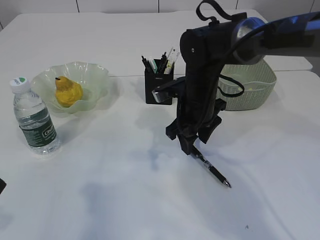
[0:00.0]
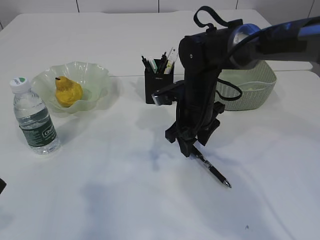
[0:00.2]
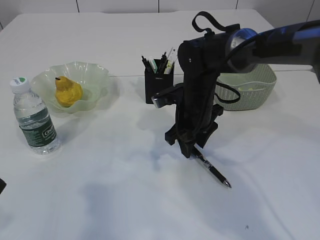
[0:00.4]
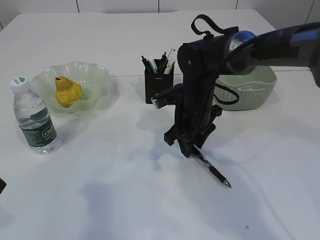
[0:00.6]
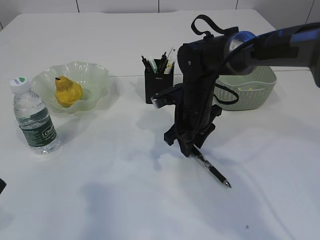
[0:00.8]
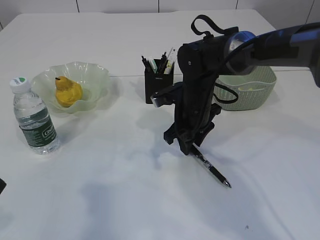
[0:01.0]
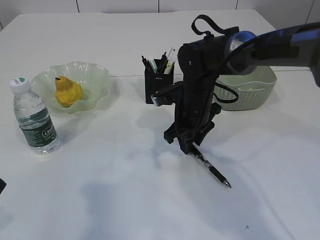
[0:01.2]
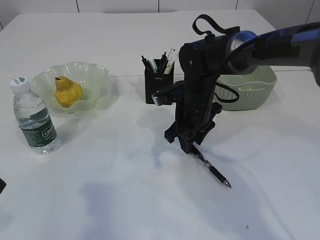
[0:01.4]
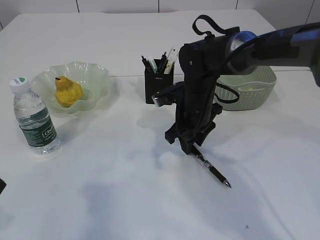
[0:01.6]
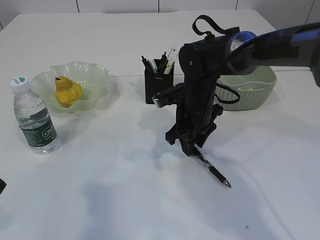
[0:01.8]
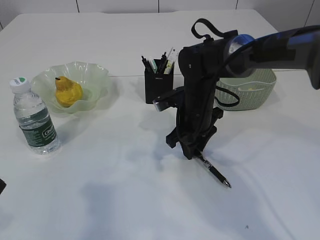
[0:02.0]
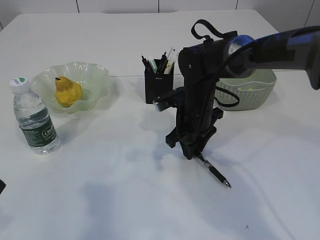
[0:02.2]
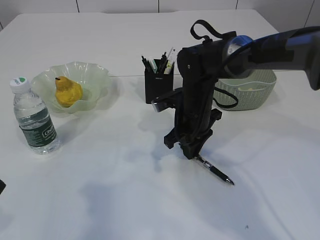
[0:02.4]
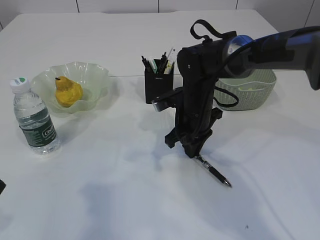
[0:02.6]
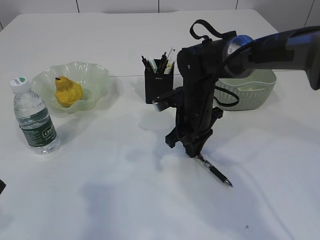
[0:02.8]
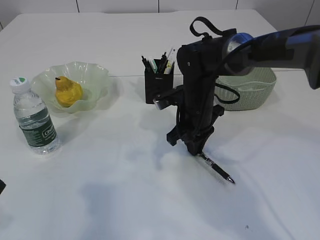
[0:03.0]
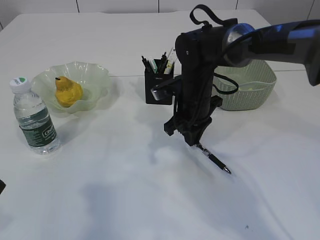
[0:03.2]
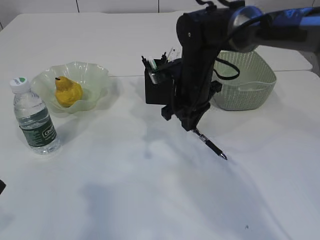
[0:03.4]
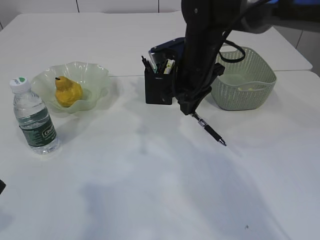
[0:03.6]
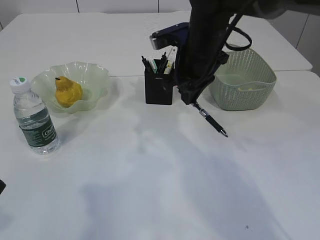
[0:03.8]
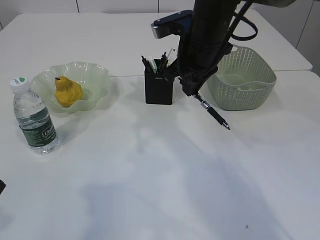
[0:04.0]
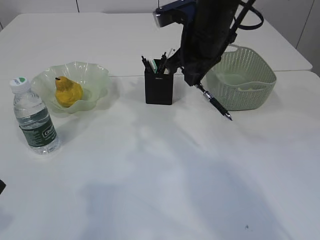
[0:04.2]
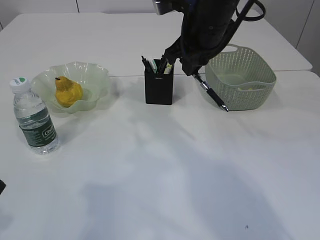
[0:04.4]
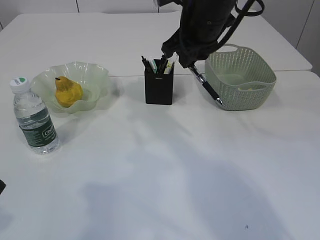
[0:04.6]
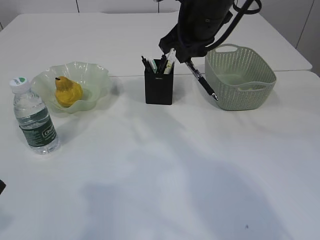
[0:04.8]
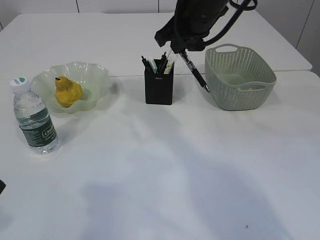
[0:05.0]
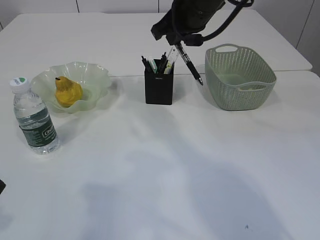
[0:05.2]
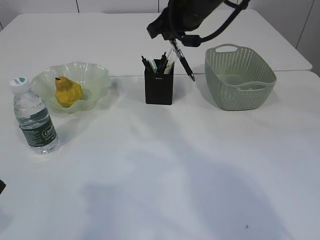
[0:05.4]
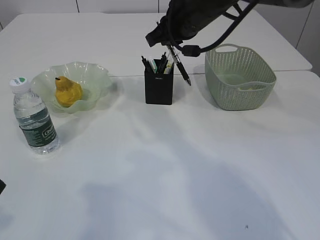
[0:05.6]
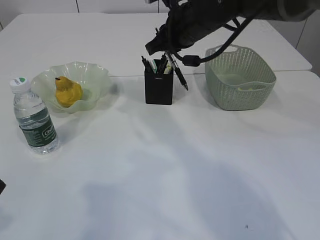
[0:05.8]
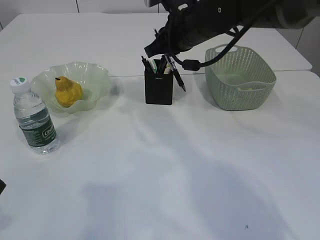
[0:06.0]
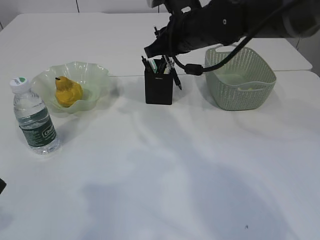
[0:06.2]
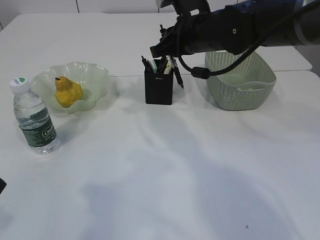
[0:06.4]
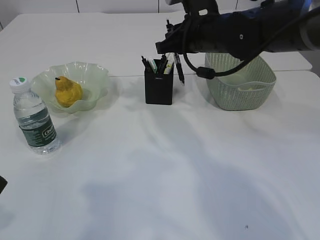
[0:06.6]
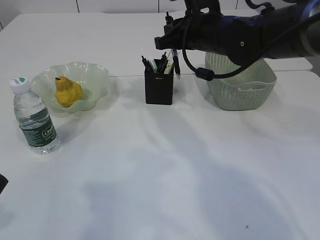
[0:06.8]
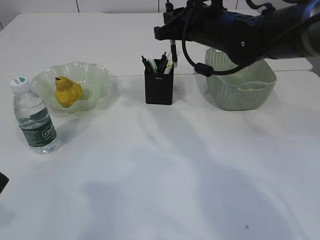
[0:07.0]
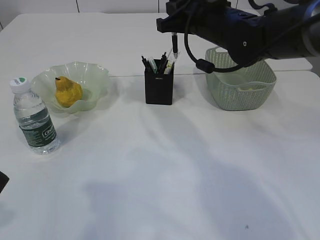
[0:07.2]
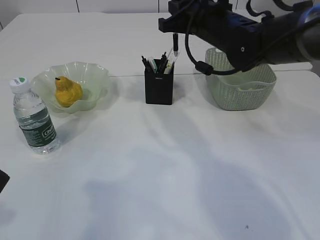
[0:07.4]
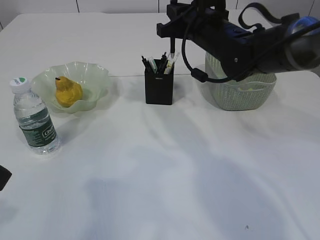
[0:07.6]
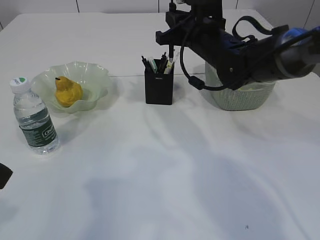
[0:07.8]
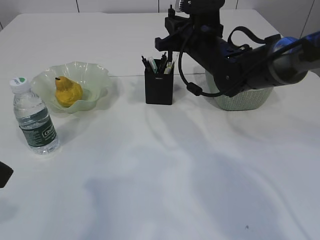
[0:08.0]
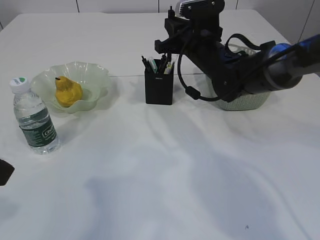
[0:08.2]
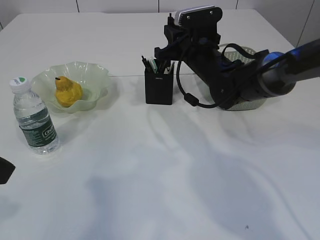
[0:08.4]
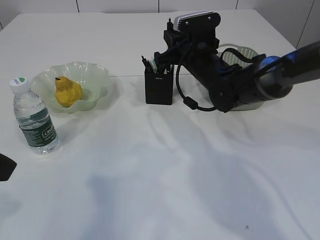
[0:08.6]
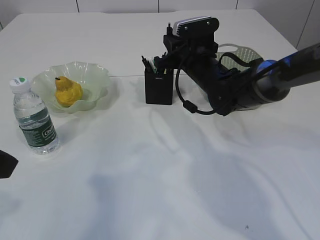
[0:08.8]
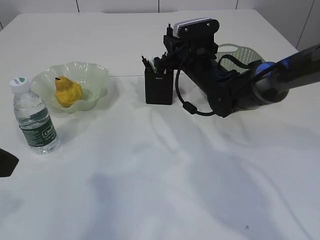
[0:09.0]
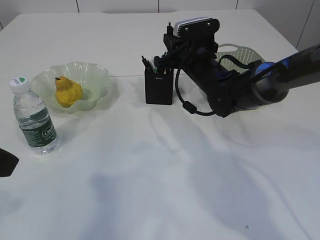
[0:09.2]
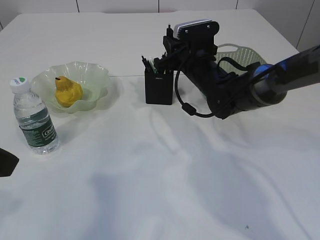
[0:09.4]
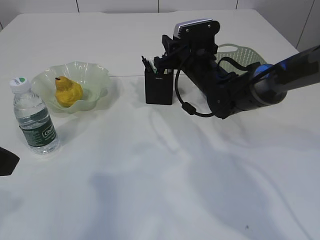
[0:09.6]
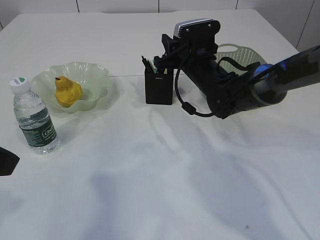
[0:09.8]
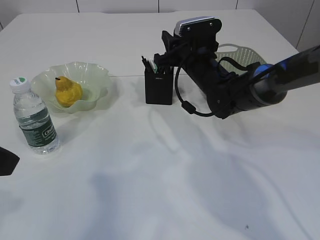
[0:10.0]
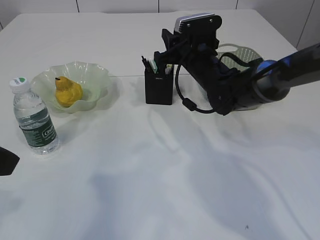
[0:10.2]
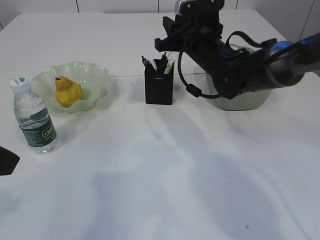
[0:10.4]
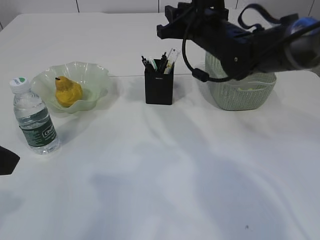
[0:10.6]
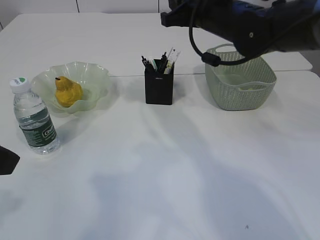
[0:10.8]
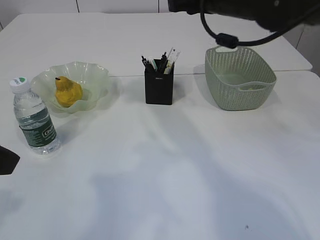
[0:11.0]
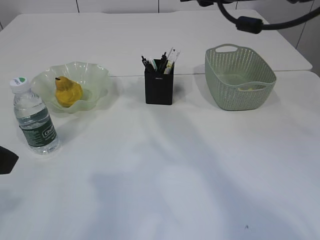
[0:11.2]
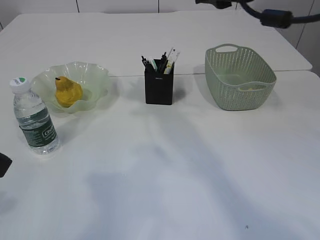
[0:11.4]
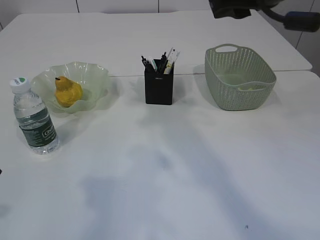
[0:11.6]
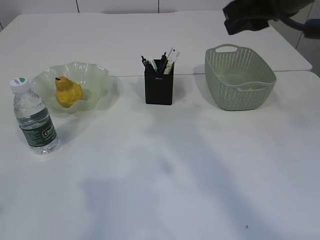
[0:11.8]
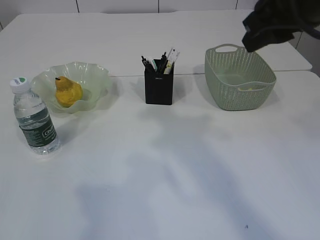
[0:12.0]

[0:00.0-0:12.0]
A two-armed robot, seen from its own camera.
Step, 0:00.0 to 0:03.4: Pick up the pen with right arm.
Step, 0:03.6 to 0:10.2: Place the pen into the pen holder.
0:00.0 to 0:01.6: The grippers move only a little.
0:01.6 to 0:03.0: The right gripper closes up.
0:03.0 to 0:04.4: The right gripper shifts about 15 cm upward.
0:07.6 to 0:09.0: The right gripper travels downward by approximately 10 cm.
0:09.0 to 0:10.4: The grippers make only small movements.
0:10.4 to 0:12.0: The right gripper travels backward and upward by about 25 cm. The left gripper shifts by roughly 5 cm.

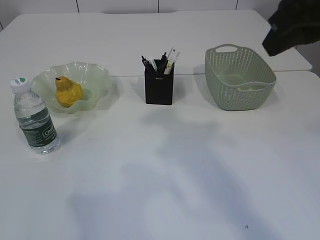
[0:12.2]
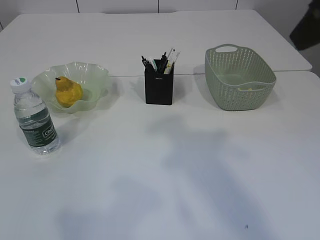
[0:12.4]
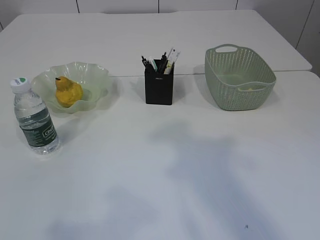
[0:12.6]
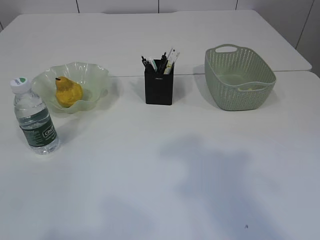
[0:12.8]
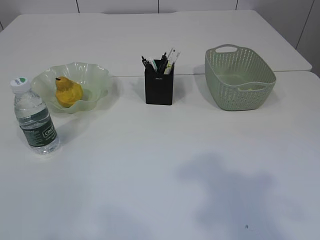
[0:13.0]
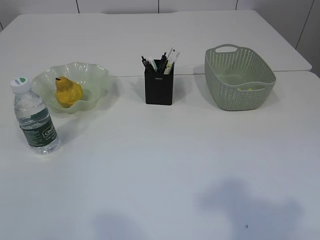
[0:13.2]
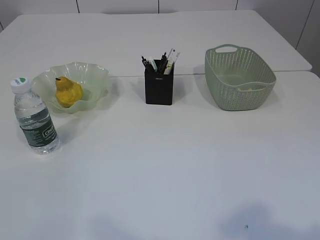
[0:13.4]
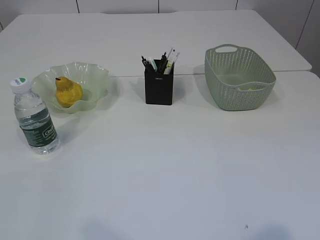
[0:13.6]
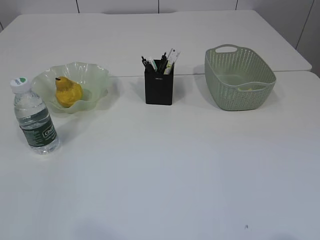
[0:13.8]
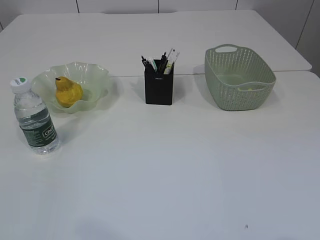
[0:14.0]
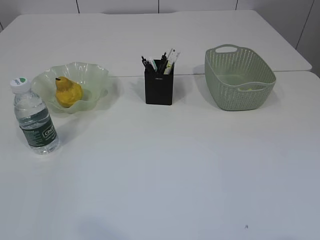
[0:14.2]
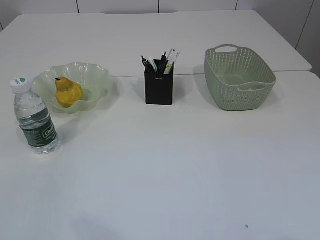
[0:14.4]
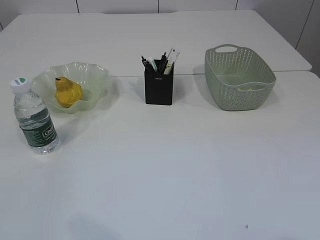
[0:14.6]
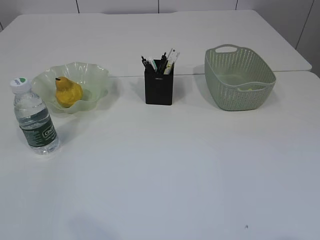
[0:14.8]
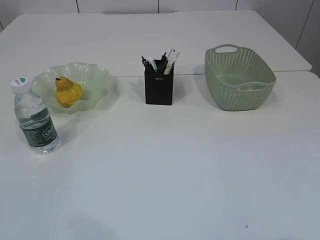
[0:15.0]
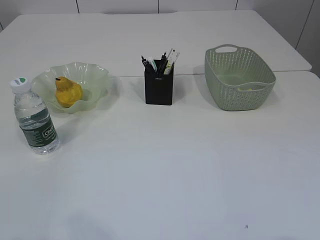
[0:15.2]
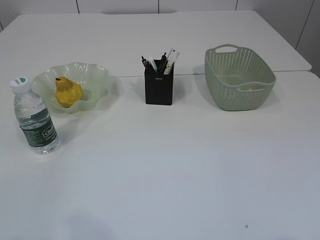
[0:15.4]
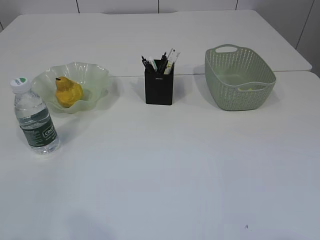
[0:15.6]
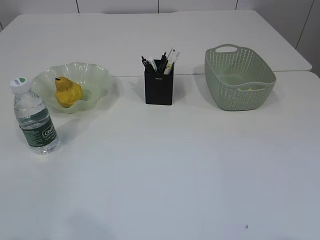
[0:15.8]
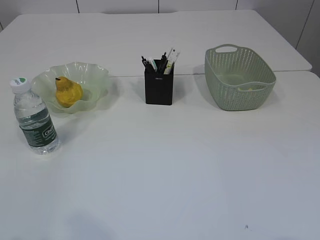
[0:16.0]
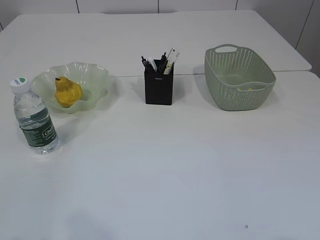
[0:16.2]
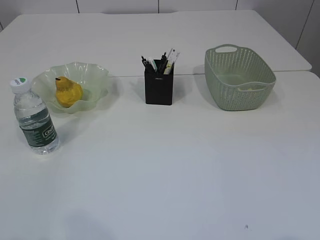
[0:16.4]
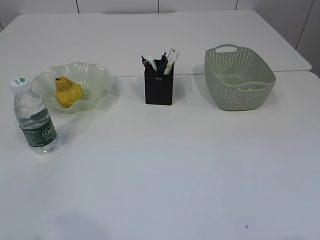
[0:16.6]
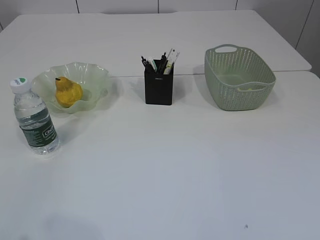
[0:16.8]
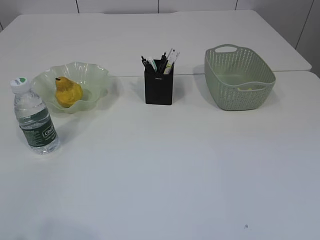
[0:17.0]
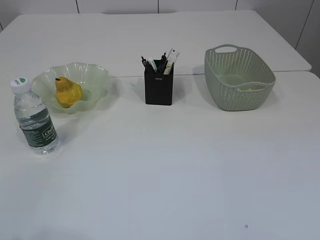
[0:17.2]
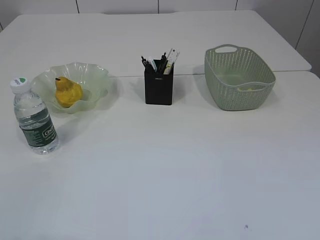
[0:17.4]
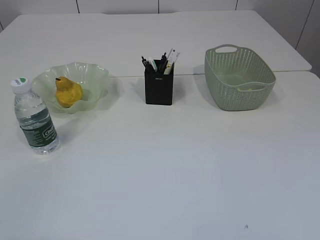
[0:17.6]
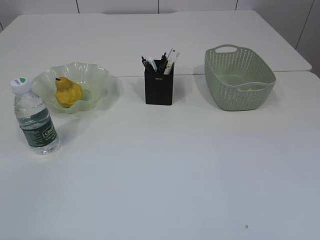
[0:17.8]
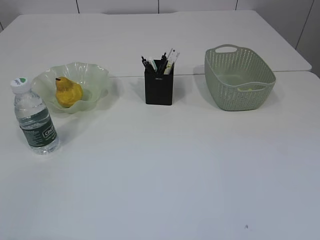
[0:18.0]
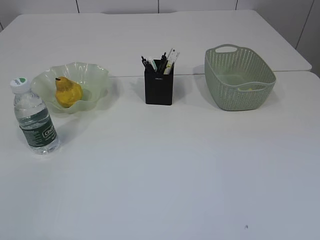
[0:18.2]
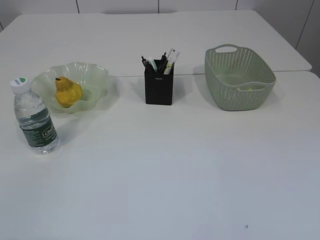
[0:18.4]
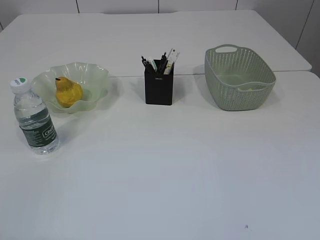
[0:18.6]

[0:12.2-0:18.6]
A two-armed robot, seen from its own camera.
0:12.2 to 0:13.8: The right gripper heads backward and downward, covering about 25 cm.

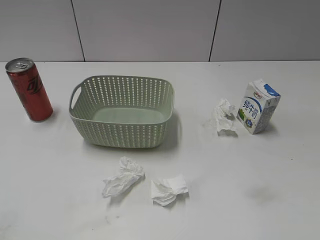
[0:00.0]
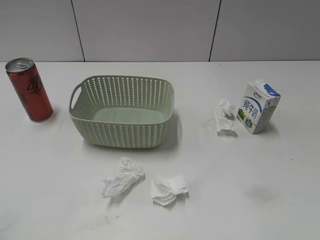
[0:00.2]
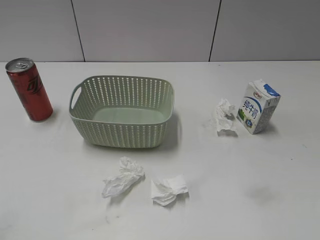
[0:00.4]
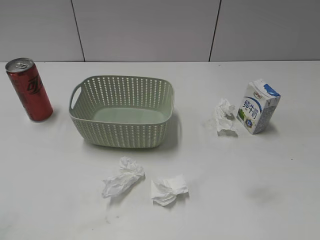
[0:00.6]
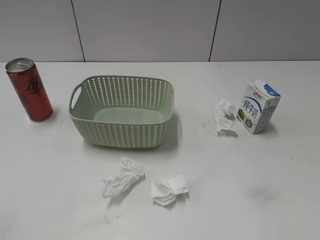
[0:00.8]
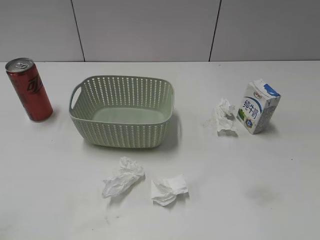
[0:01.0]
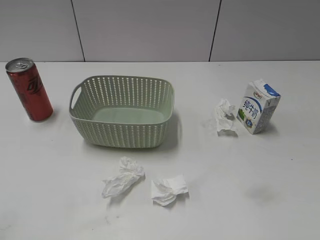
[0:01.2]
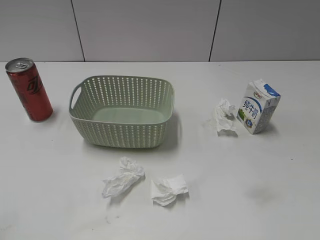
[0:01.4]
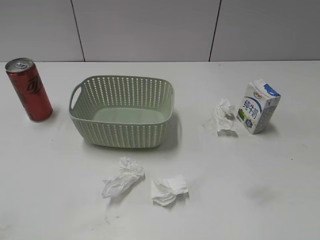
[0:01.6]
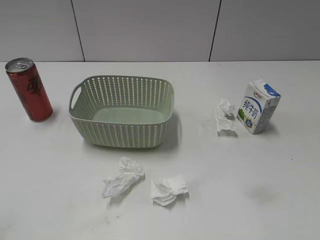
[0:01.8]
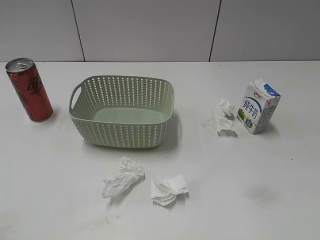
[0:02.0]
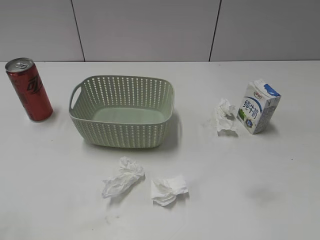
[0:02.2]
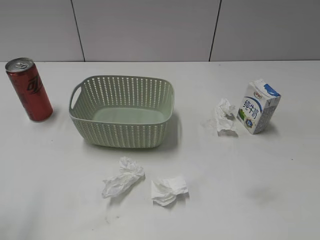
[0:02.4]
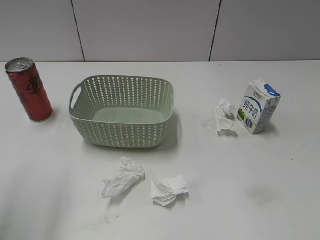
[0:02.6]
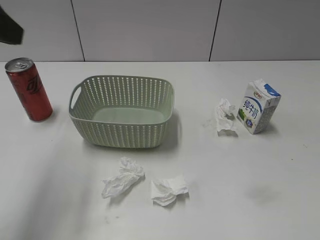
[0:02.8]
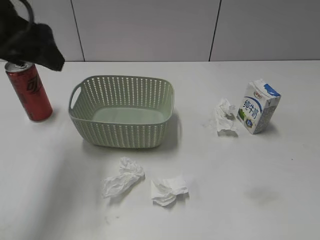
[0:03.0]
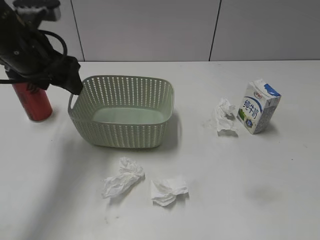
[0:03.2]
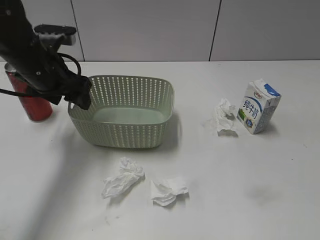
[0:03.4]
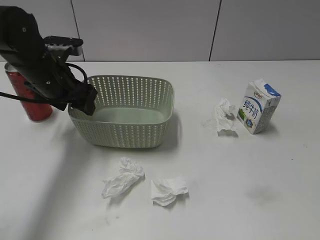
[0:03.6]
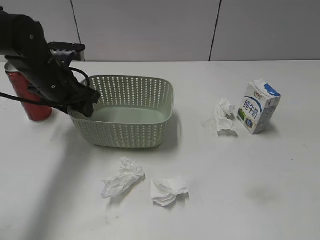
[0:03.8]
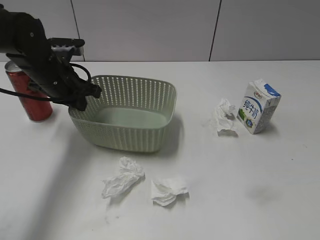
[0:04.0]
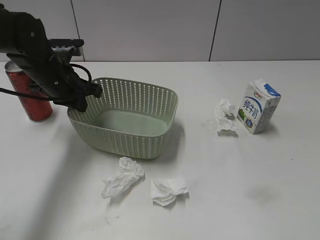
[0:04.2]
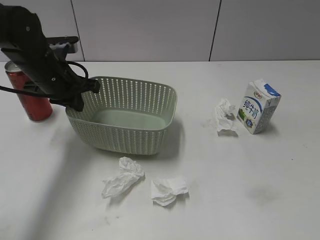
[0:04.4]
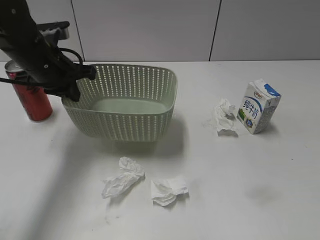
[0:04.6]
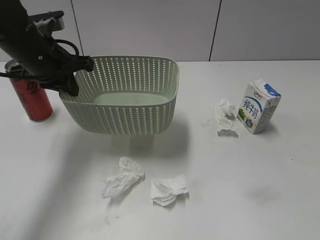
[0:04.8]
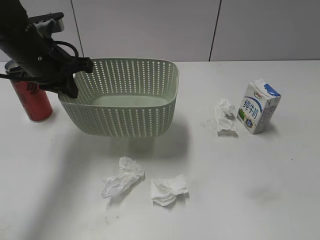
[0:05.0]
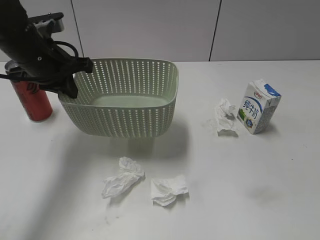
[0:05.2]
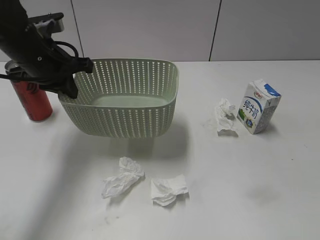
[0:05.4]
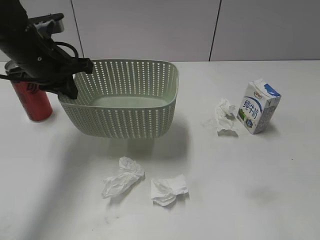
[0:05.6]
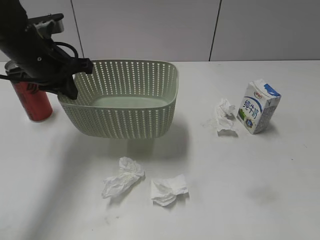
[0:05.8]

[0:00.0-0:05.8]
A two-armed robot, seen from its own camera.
Step, 0:02.8 to 0:04.0: Grasp the basket with left gripper.
Step, 0:04.2 to 0:04.8: Lift the basket with left gripper.
0:01.4 to 0:02.8: The left gripper heads forward and upward, covering roughly 20 cm, and opens its fingers.
0:02.8 to 0:04.4: The left gripper travels downward, forward and to the right by about 30 cm, and closes.
0:04.4 to 0:05.8: The left gripper travels upward by about 5 cm. Meanwhile the right gripper moves forward, some 5 cm.
